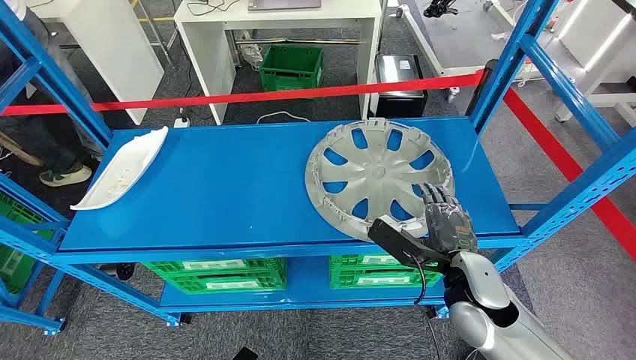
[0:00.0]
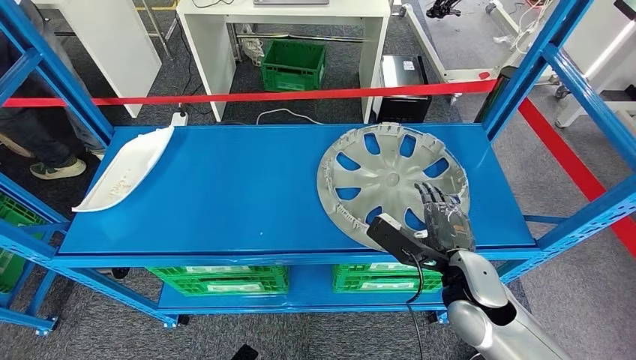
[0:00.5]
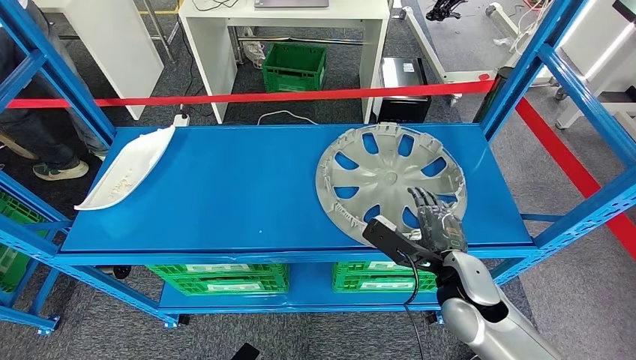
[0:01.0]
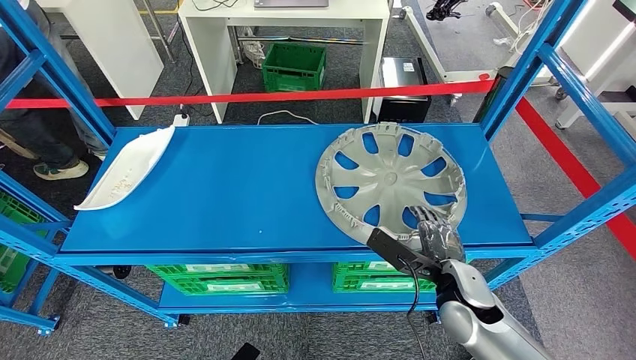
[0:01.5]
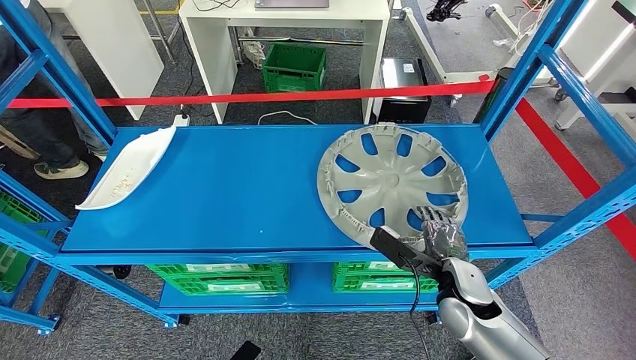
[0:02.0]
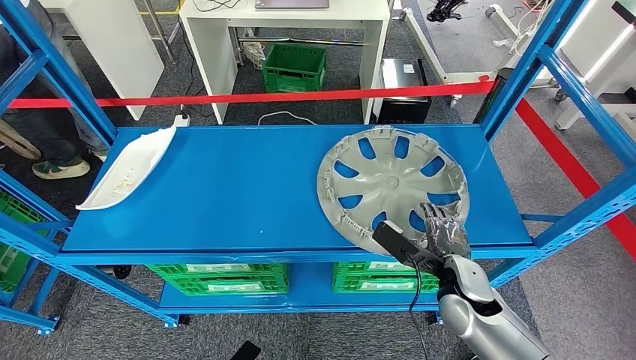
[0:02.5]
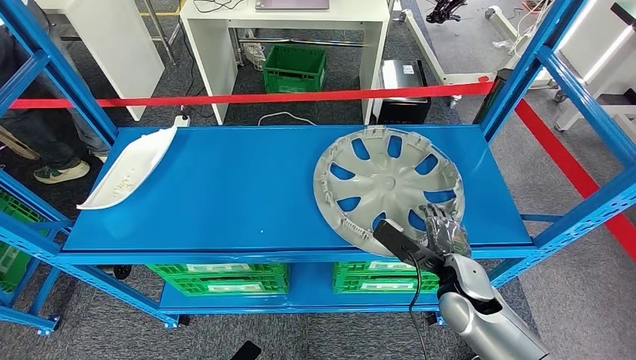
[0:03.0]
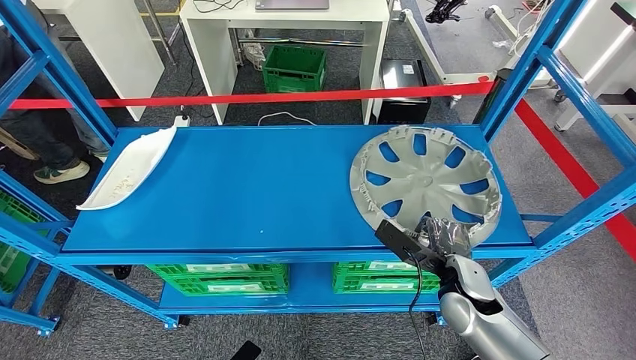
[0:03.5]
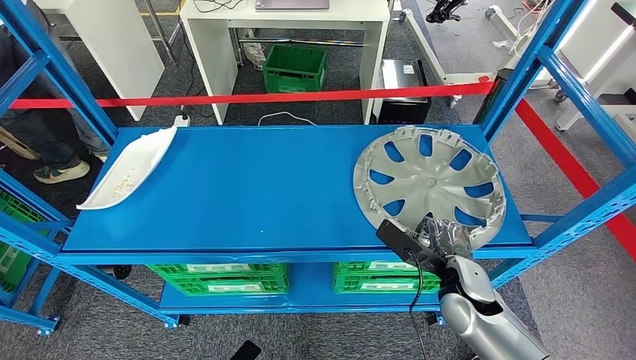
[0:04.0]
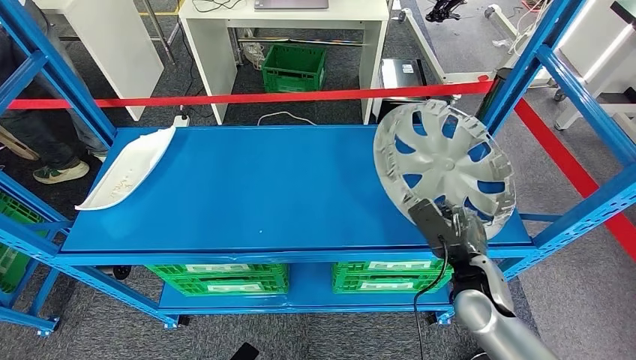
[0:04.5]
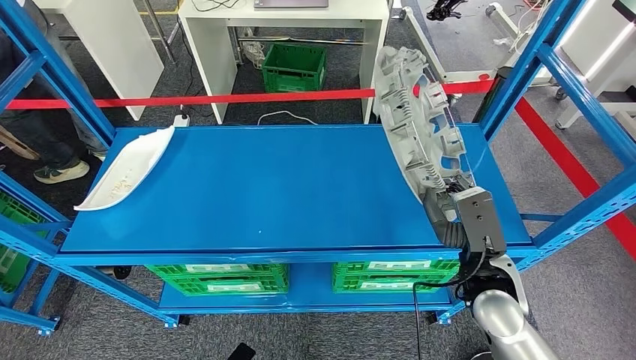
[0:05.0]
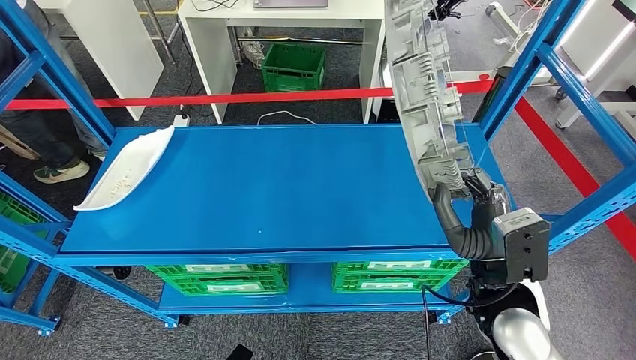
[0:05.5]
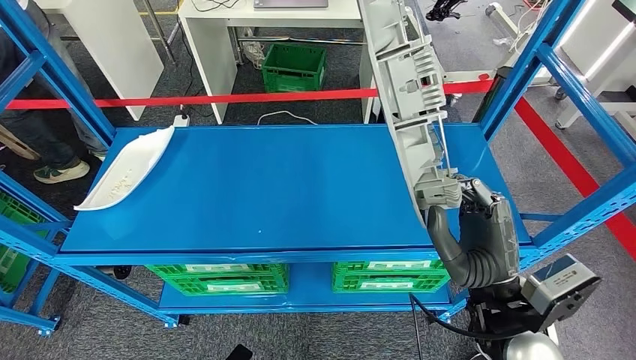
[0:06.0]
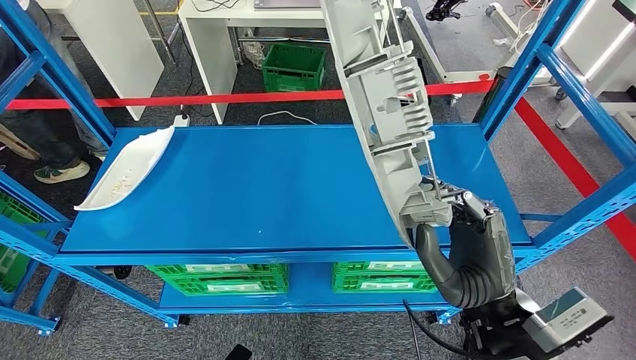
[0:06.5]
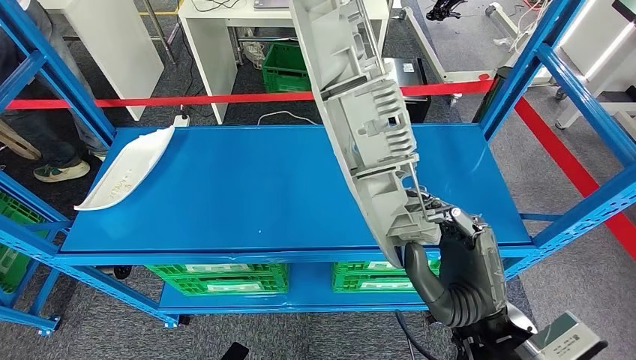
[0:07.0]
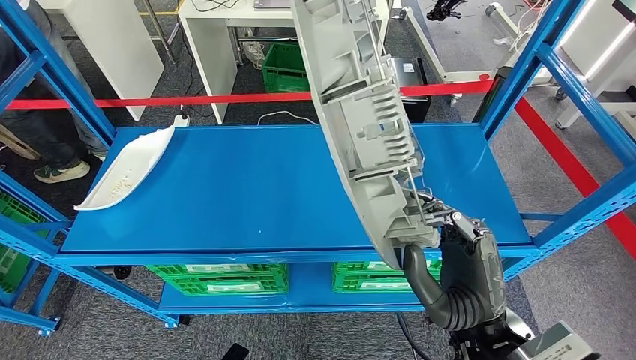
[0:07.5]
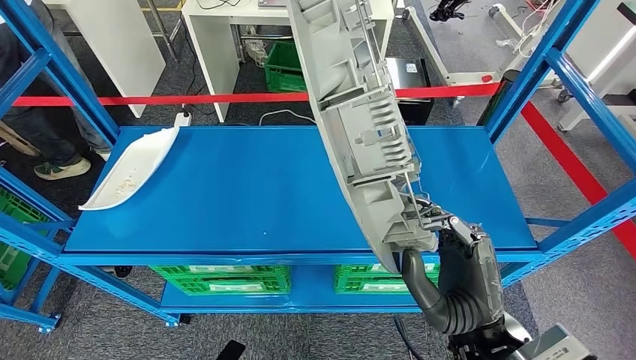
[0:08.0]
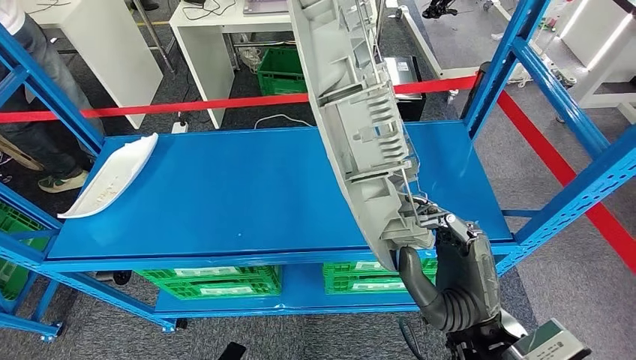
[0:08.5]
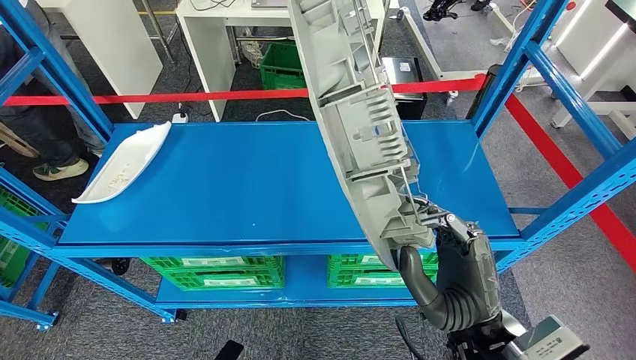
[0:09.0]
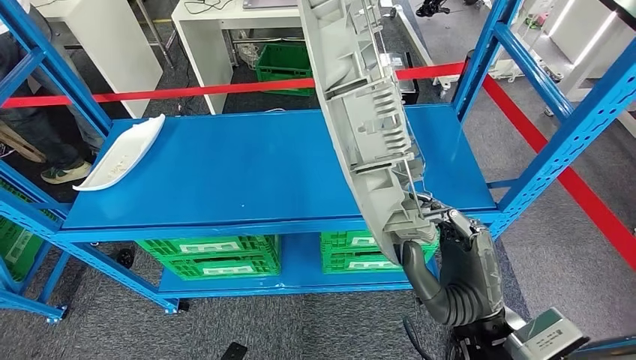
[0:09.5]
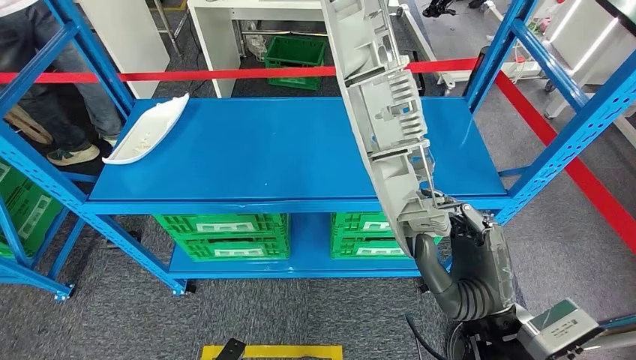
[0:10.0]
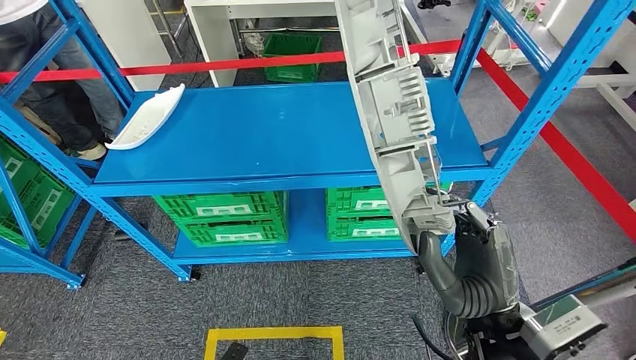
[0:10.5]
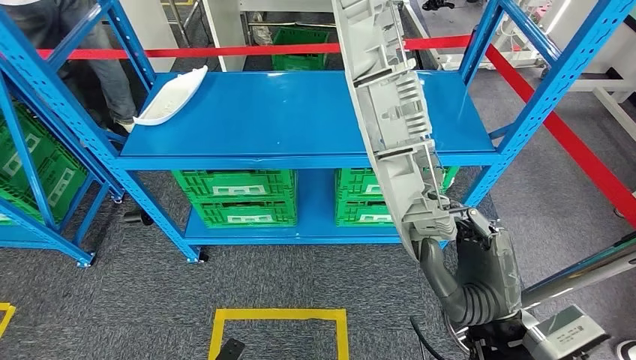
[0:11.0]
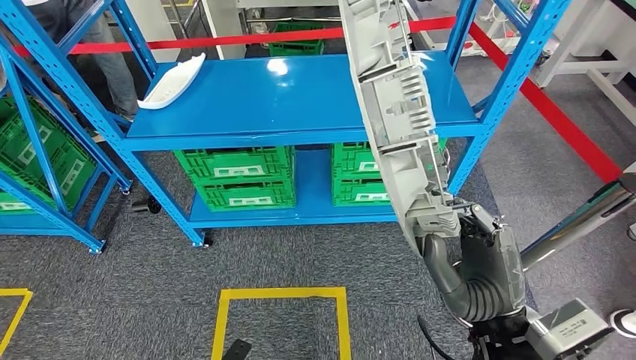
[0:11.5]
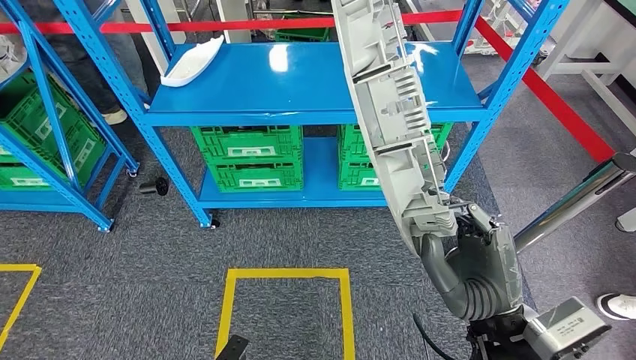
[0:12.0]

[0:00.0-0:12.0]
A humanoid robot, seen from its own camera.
Step, 0:00.0 to 0:07.0: Pick up the large material from the shelf.
0:02.0 to 0:04.0: Both hands stay put.
0:04.0 to 0:06.0: The right hand heads upward and backward, covering roughly 15 cm.

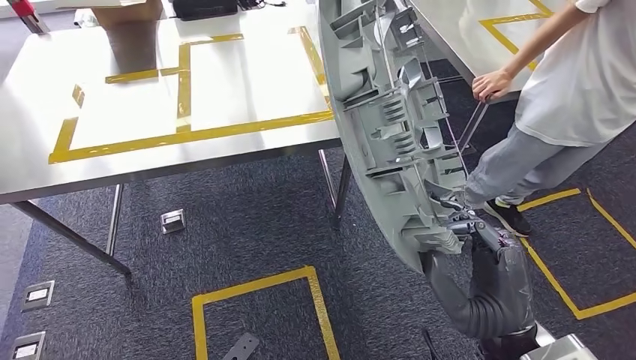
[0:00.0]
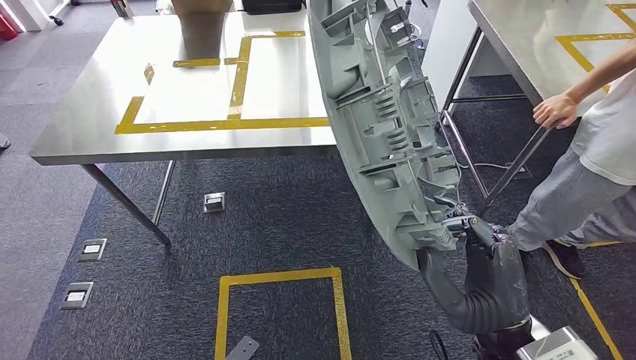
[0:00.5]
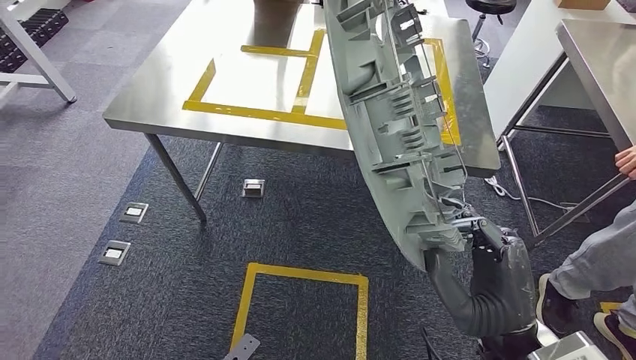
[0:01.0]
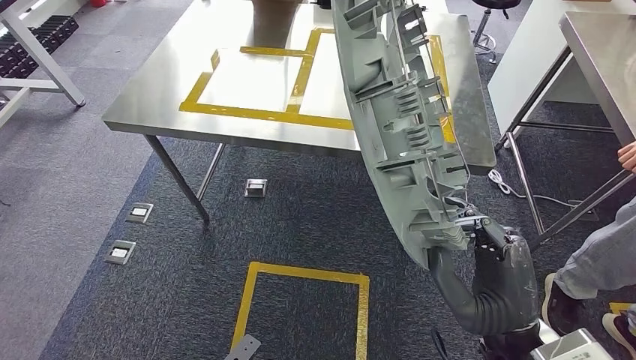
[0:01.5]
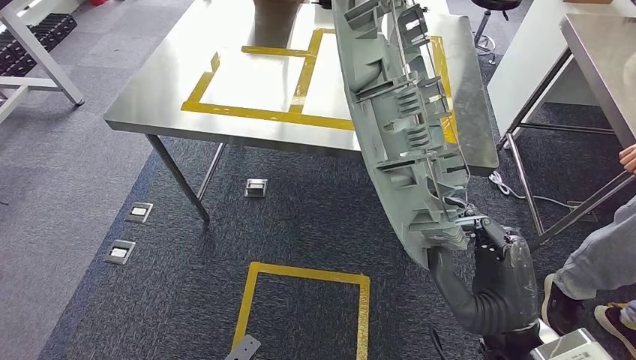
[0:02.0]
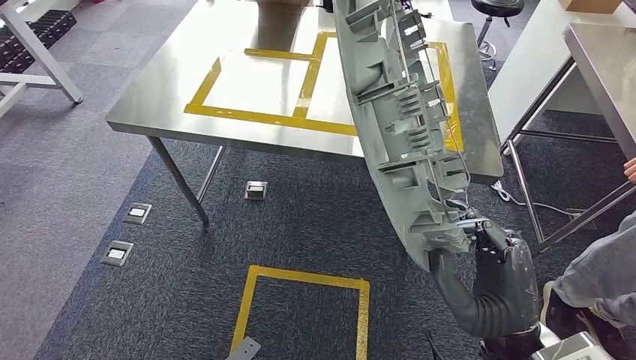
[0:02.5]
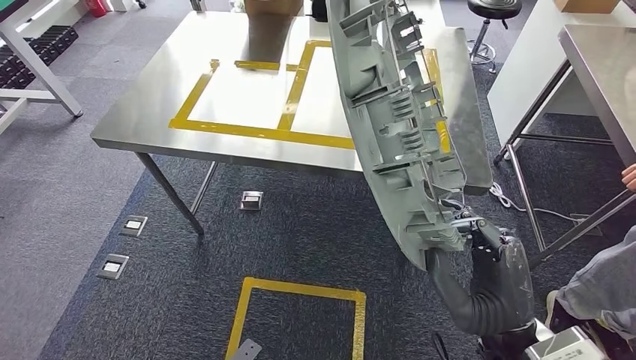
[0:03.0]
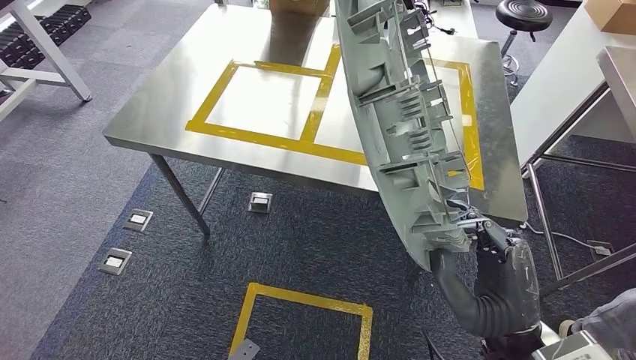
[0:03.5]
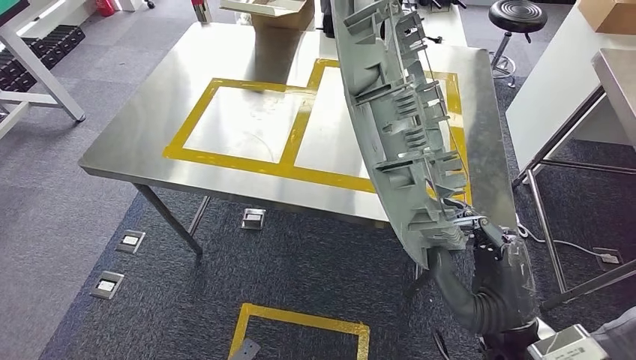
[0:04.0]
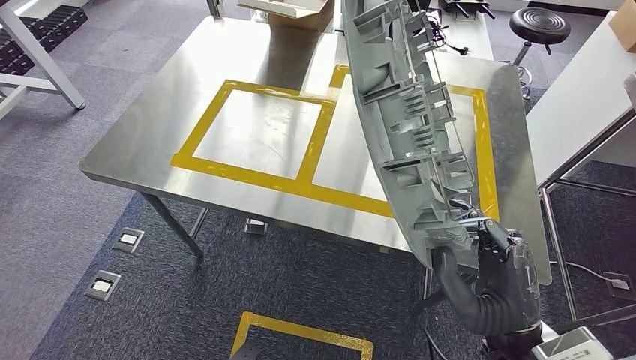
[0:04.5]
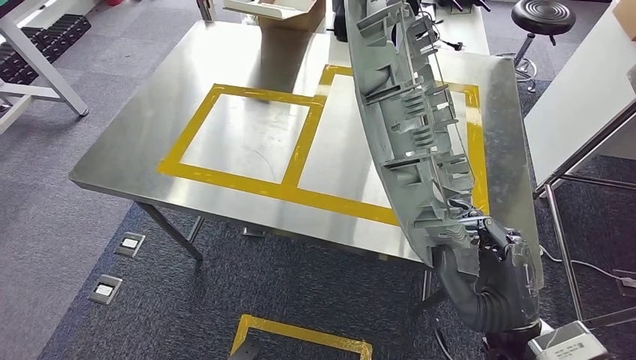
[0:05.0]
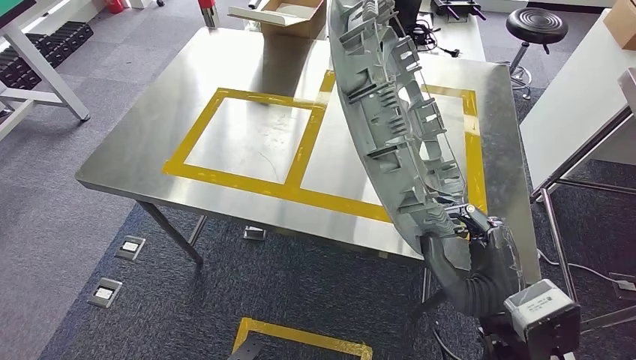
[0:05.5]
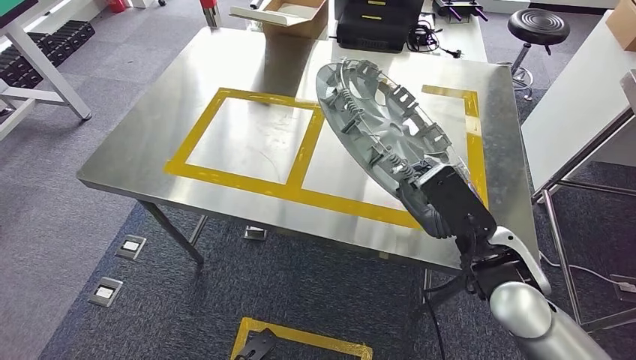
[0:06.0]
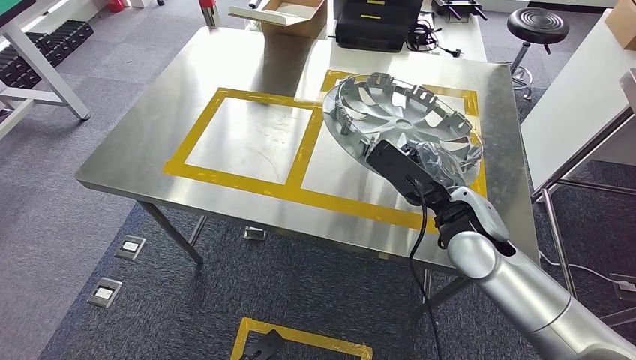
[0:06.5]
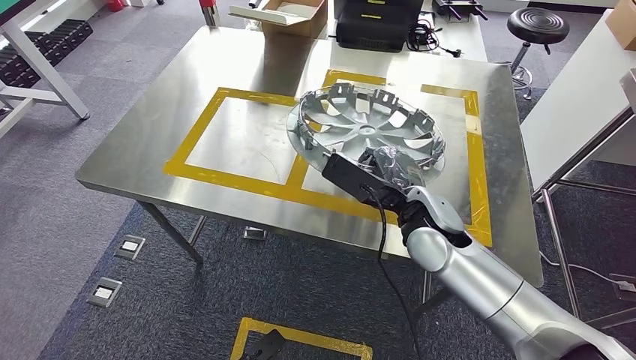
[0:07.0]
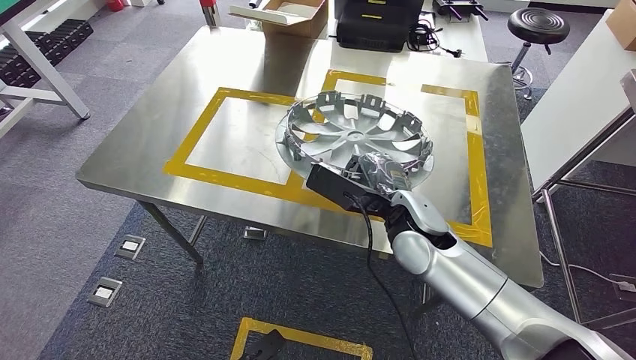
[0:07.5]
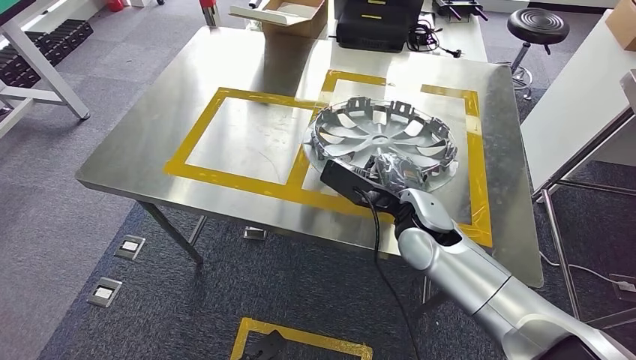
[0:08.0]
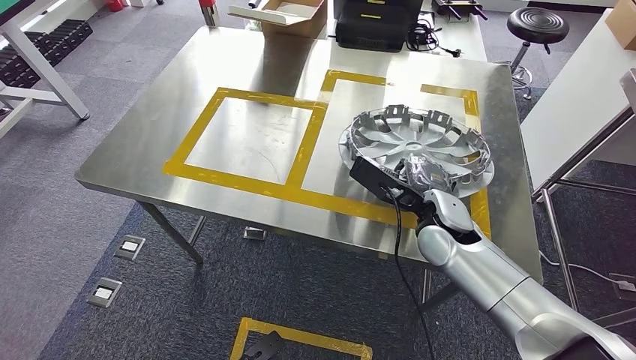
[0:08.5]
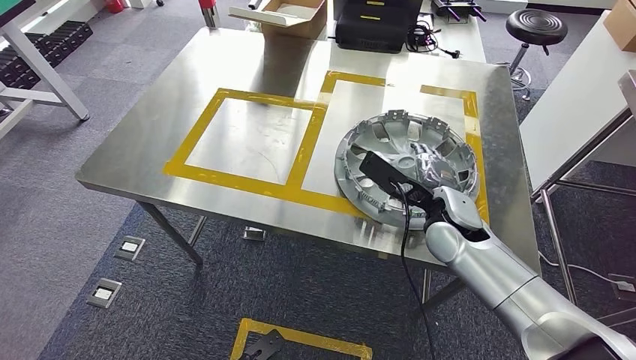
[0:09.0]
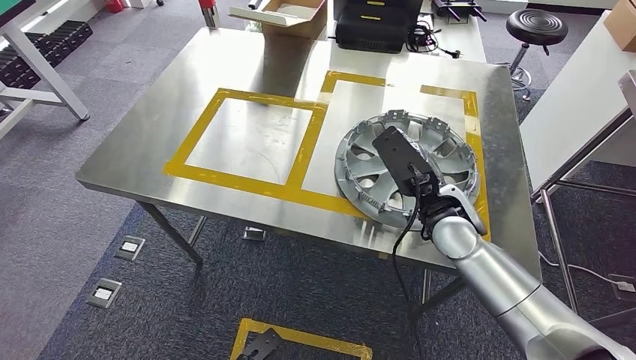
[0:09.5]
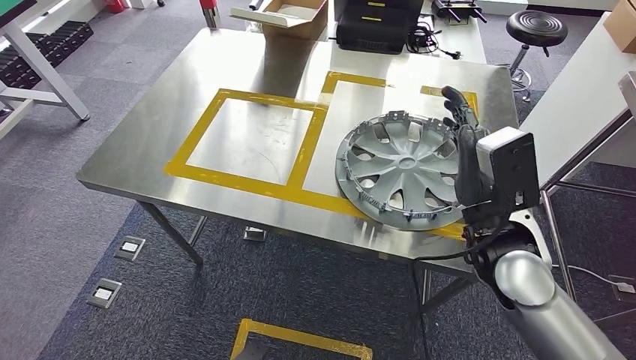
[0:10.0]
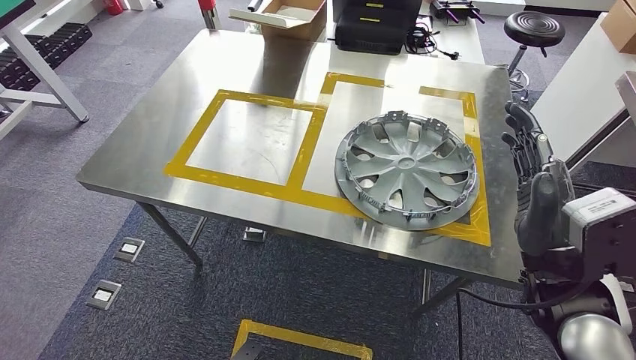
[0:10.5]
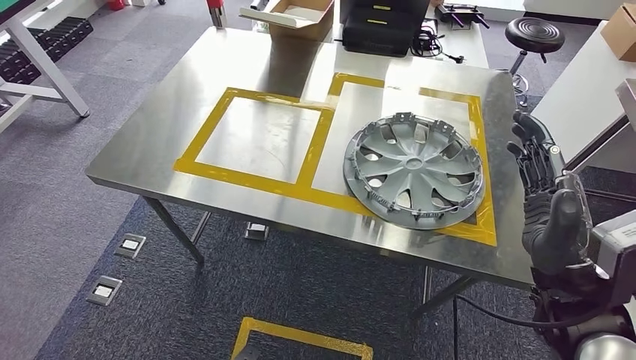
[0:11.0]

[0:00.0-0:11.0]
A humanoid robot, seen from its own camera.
Step, 0:00.0 to 0:04.0: Move the large material to the workbench.
0:07.5 to 0:09.0: The right hand moves to the right, about 5 cm.
